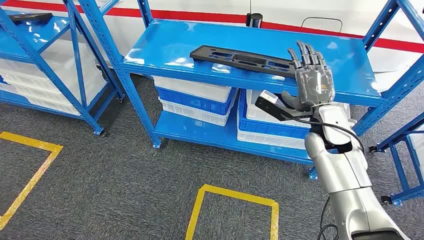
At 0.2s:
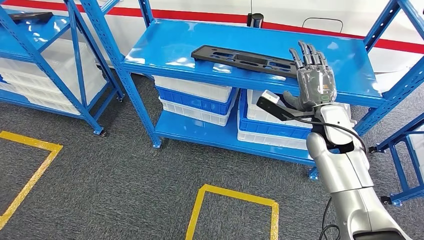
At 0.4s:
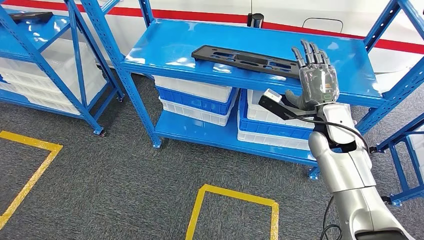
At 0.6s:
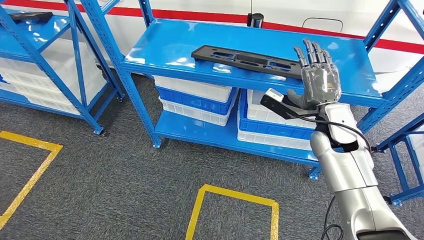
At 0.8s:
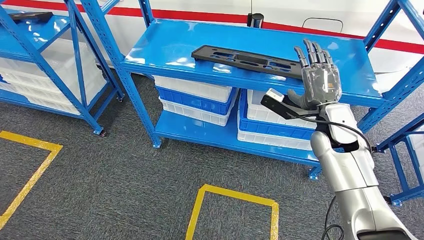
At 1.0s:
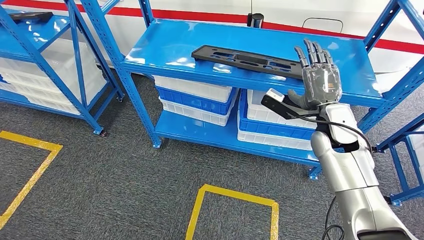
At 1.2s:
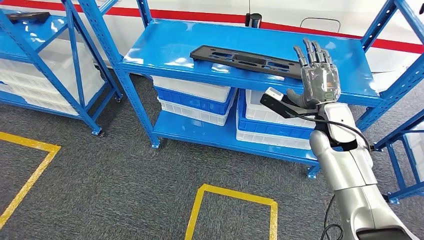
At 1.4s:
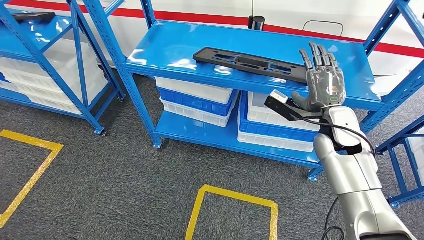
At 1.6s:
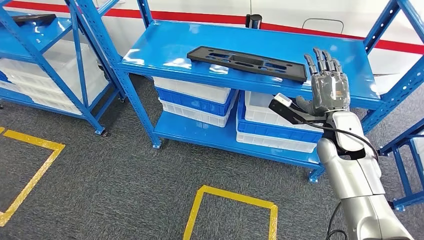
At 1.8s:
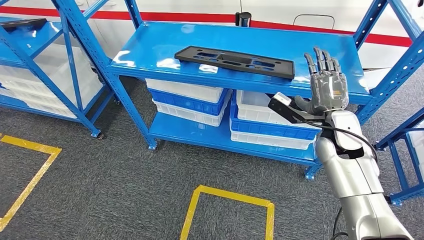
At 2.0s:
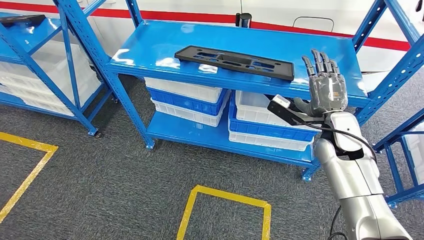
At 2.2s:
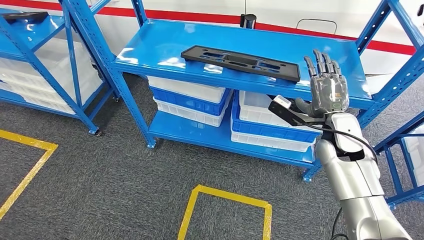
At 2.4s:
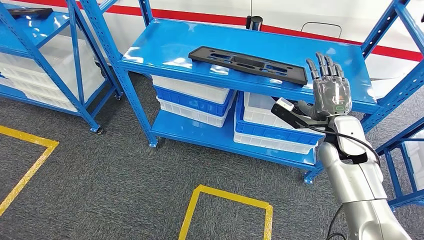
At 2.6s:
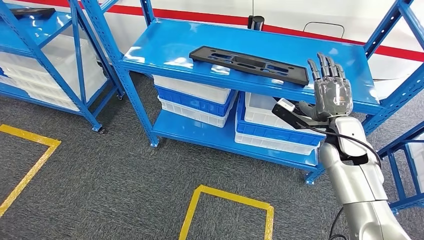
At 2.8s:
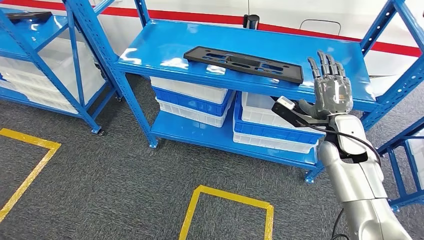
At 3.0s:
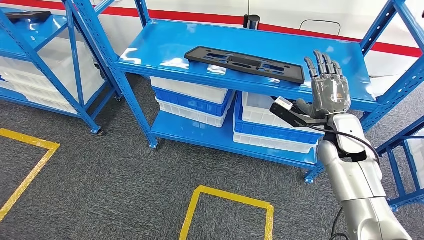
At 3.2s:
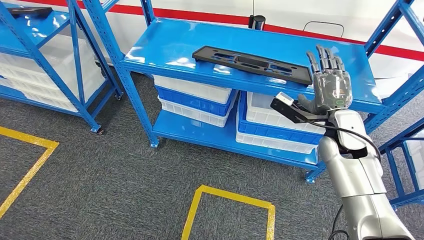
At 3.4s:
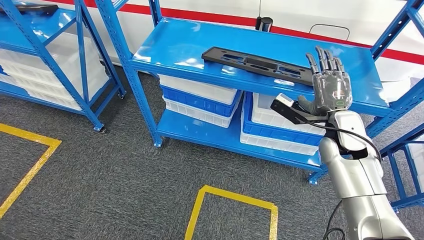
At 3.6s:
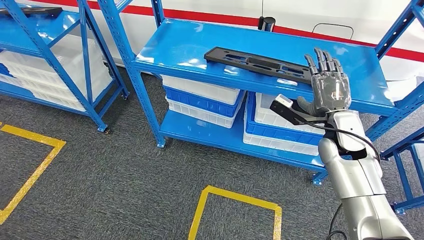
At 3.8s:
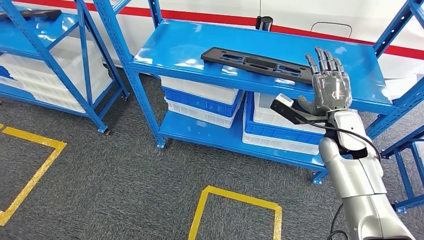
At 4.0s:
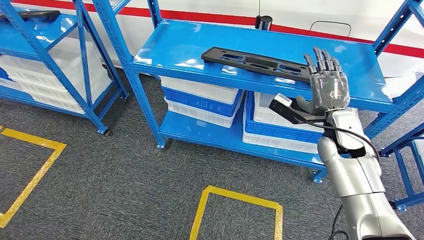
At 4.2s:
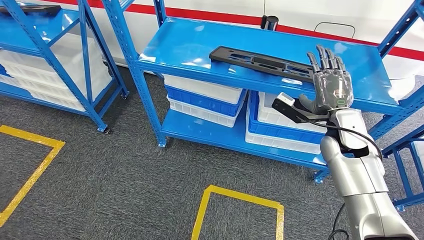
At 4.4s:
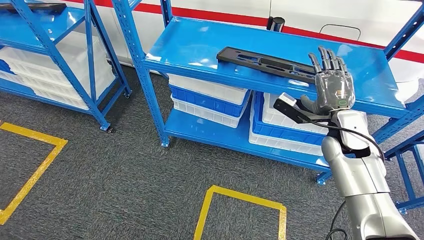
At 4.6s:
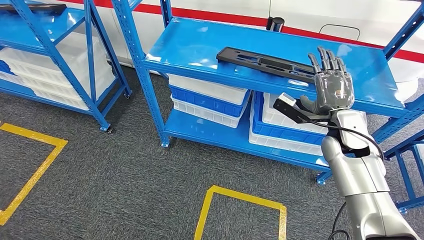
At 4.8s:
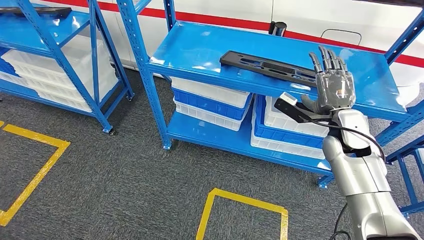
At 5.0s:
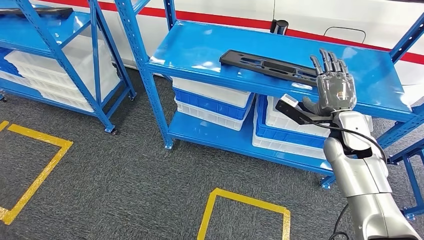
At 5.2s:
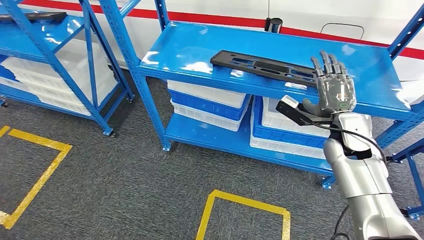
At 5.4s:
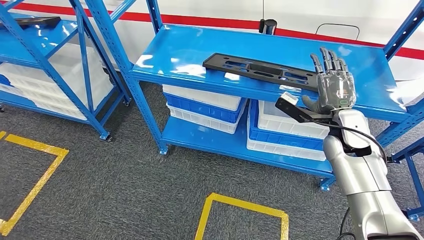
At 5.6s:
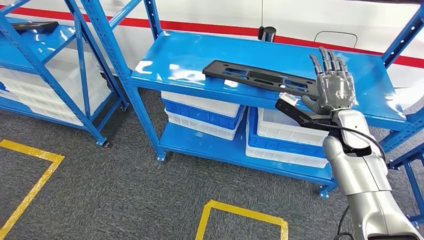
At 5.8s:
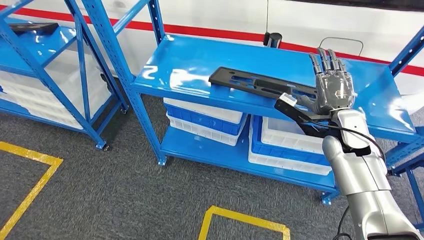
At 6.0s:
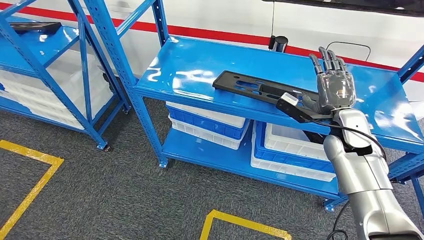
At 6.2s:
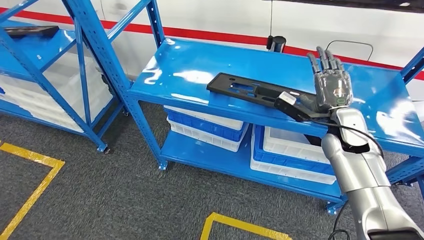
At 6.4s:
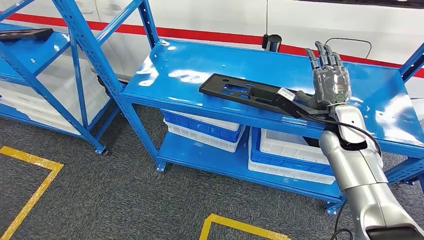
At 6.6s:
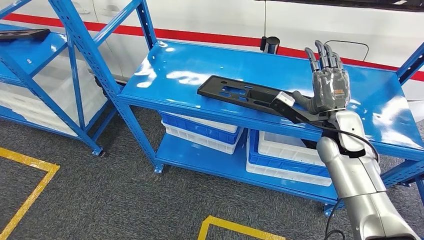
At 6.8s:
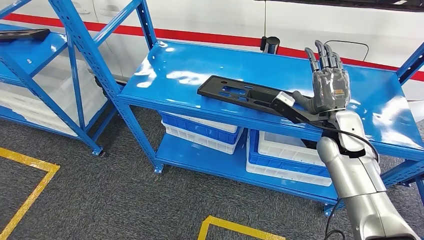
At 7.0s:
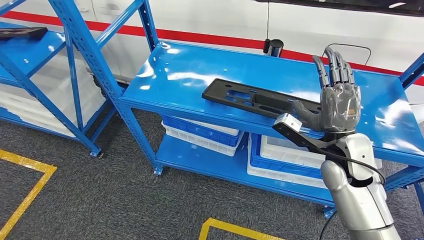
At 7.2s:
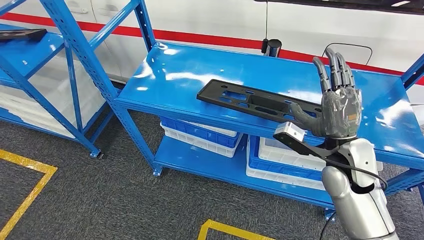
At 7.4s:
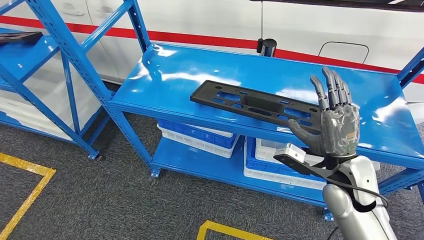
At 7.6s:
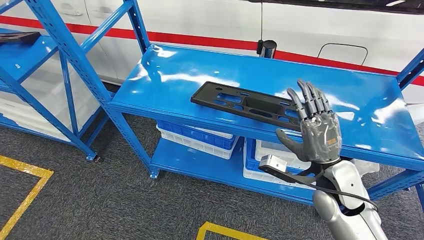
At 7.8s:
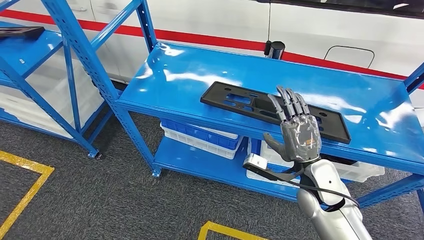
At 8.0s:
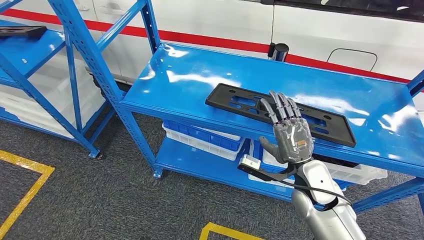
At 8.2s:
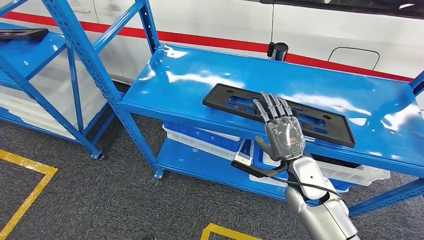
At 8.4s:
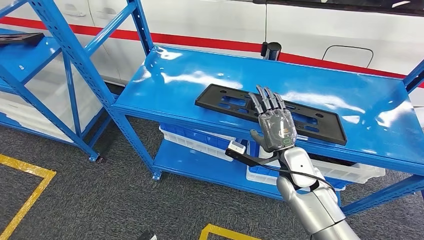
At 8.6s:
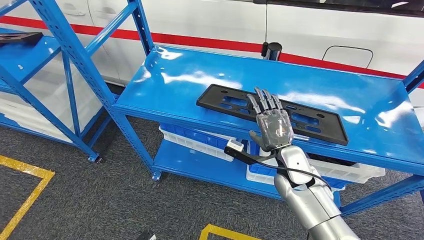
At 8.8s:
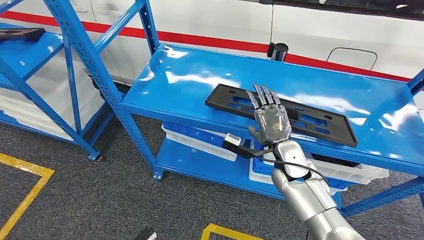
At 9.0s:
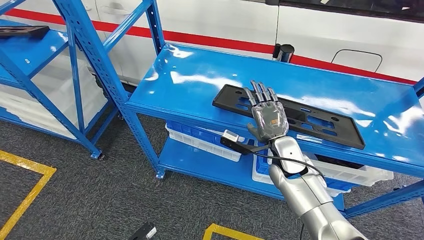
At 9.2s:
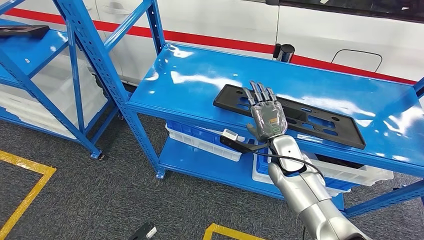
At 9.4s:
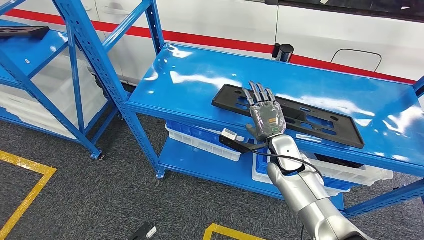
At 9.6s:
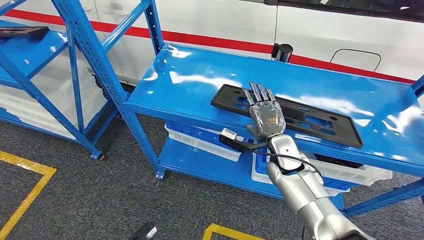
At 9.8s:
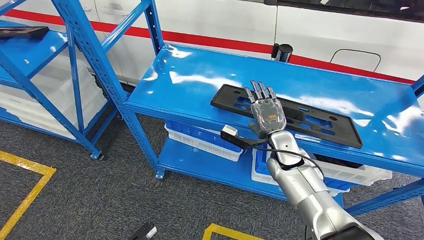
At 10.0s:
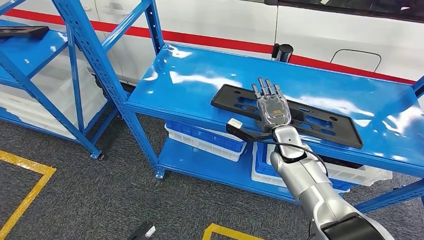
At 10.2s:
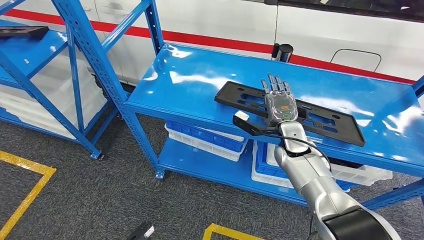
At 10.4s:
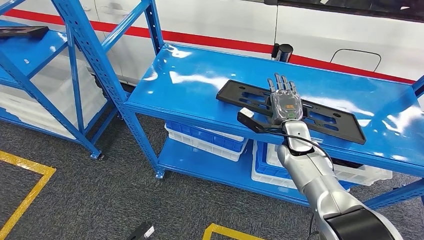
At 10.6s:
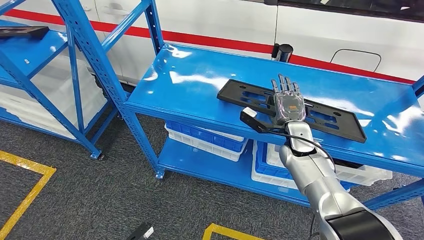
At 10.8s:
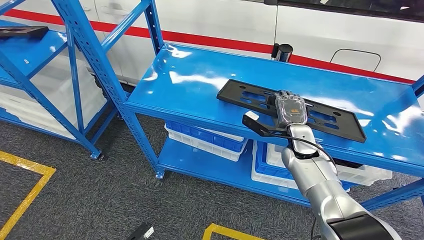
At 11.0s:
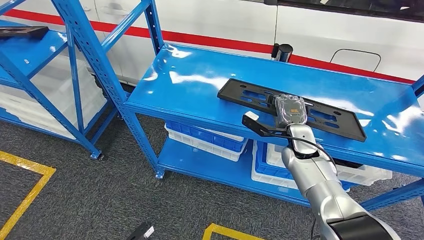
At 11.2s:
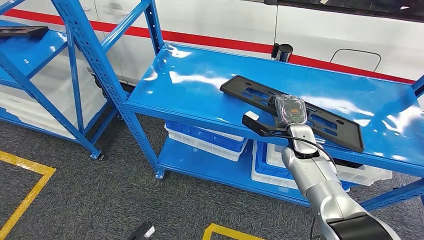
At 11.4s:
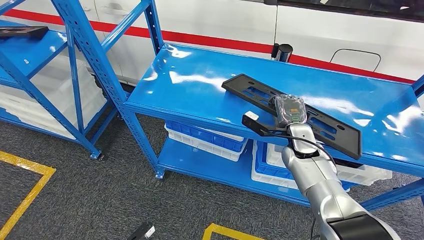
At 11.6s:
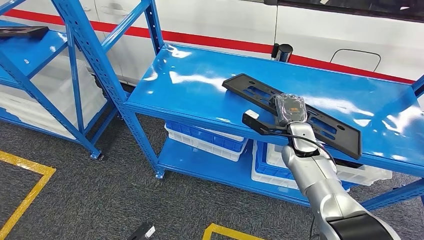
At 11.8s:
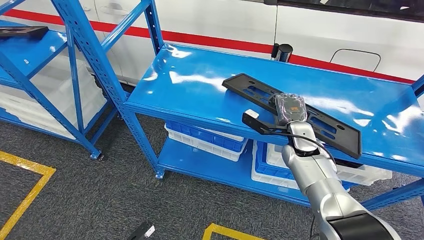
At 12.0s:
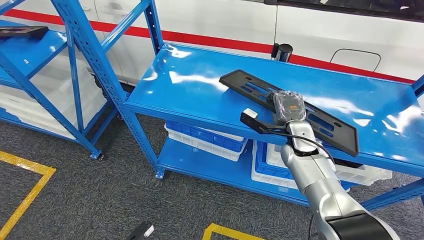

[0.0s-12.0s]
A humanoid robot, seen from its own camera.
9.0s to 10.4s: The right hand moves forward, approximately 5 cm.
10.4s to 12.0s: The hands make only small movements.

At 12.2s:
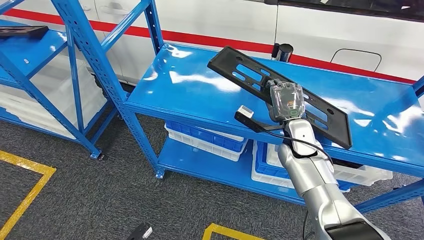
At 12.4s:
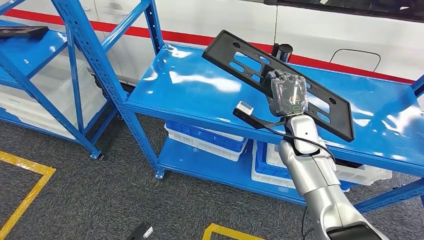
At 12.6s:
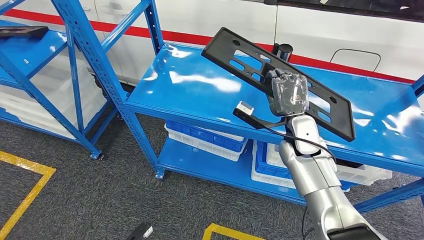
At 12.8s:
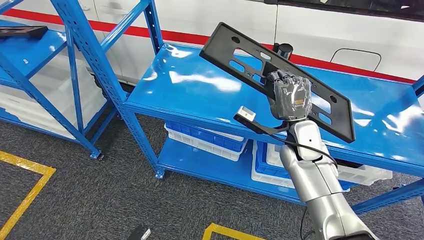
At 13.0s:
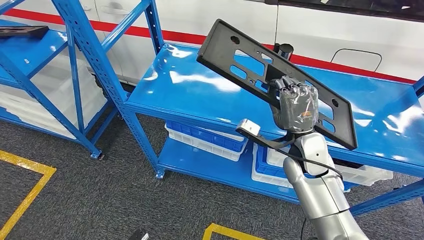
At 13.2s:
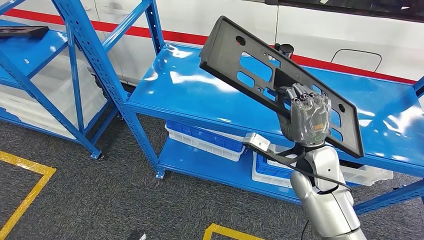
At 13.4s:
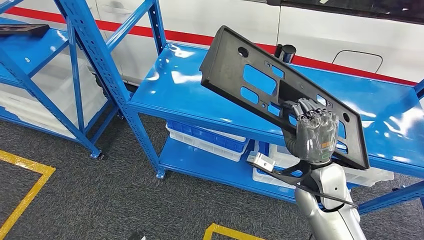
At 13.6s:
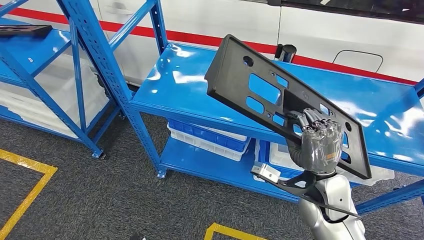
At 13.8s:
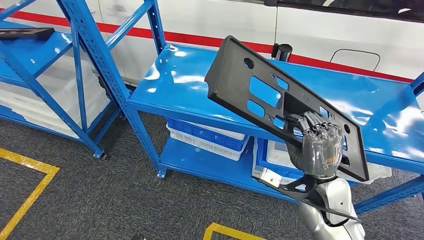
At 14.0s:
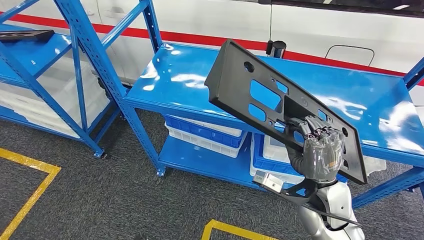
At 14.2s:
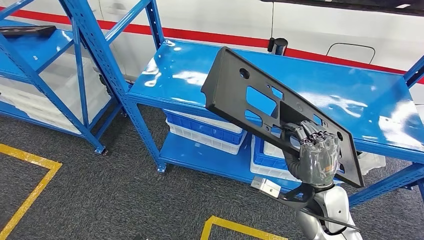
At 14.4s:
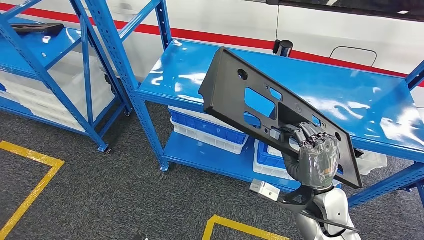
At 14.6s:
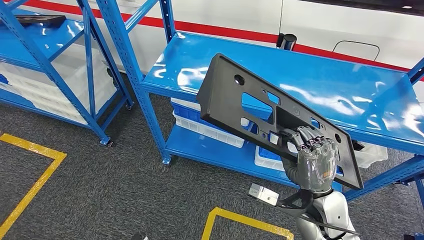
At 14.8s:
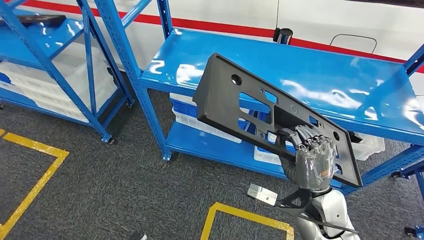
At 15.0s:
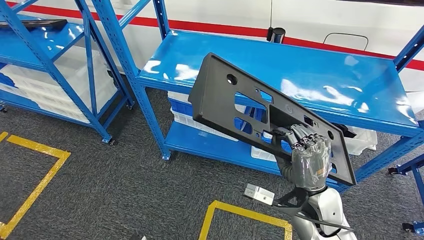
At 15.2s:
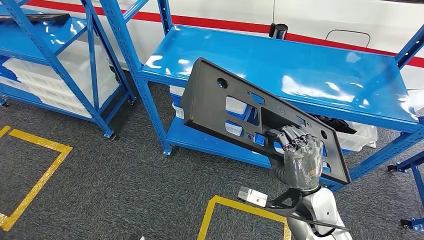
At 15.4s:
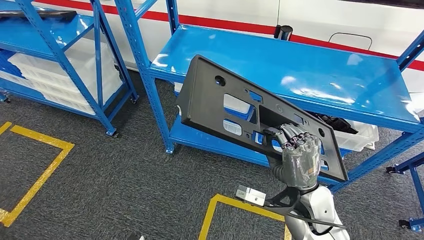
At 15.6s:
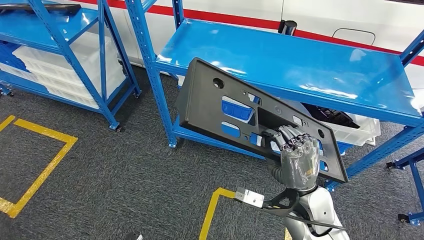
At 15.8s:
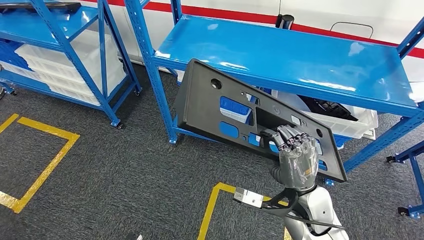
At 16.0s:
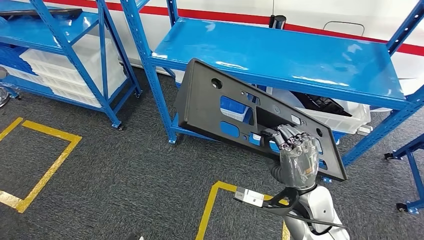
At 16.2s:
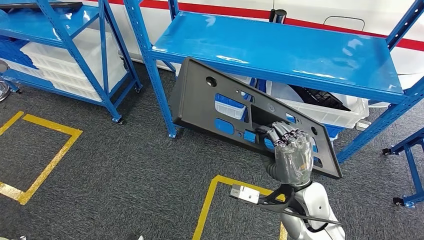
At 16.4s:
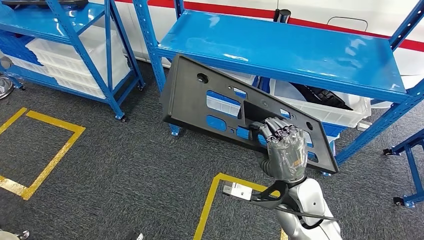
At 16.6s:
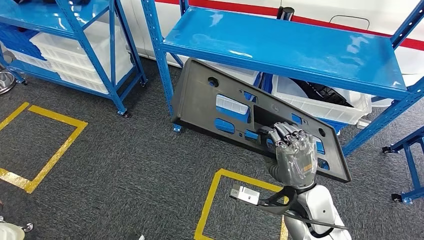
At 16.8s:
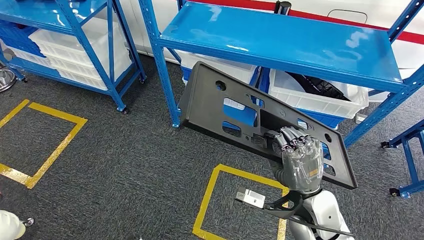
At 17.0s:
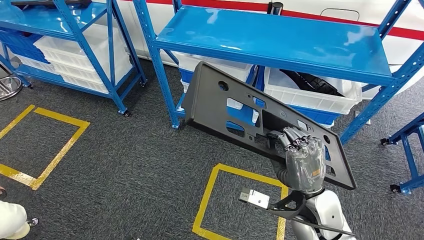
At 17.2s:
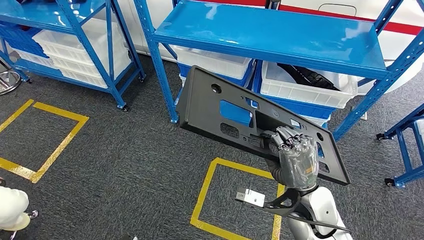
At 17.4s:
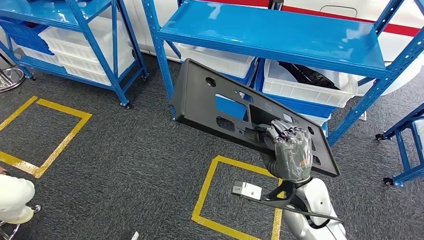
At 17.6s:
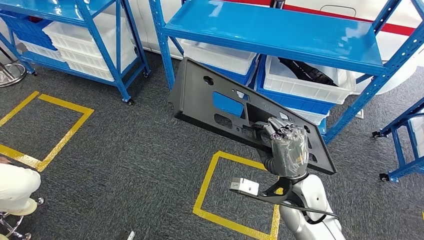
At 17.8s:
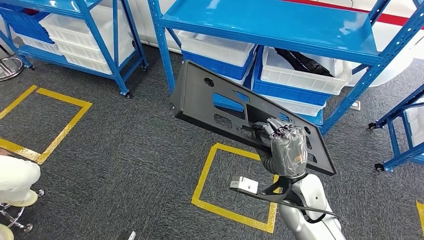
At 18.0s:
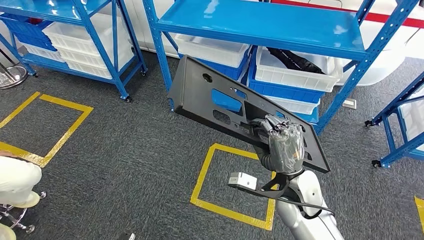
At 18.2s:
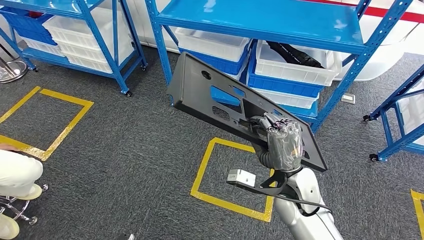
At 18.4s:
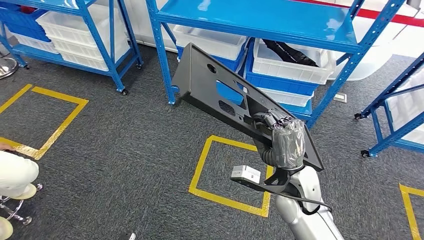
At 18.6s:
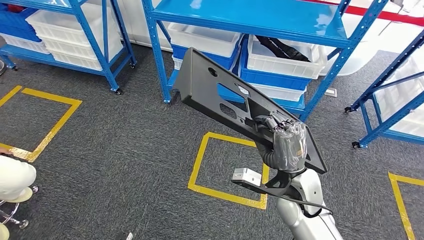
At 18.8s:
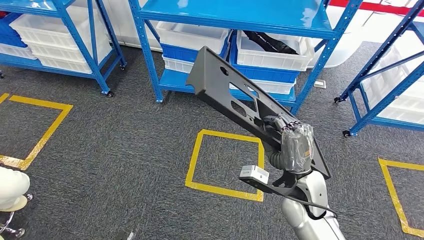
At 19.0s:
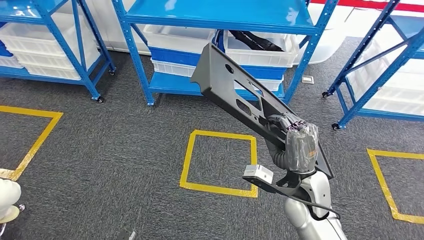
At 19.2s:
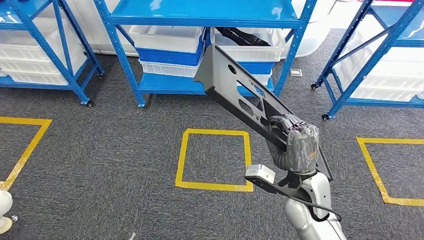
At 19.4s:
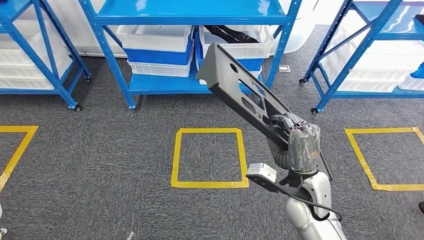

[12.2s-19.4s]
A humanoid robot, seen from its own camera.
Step, 12.2s to 15.6s: Pick up the large material from the shelf.
